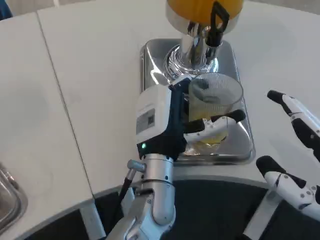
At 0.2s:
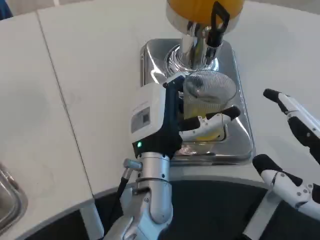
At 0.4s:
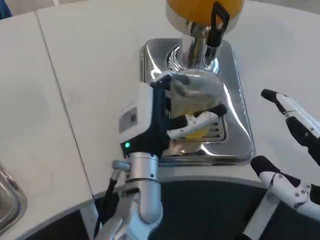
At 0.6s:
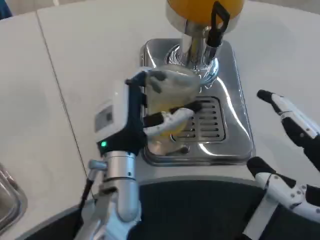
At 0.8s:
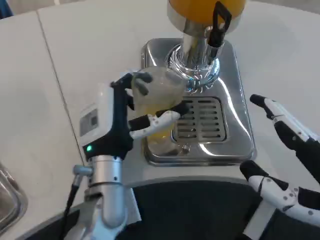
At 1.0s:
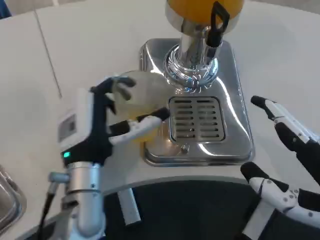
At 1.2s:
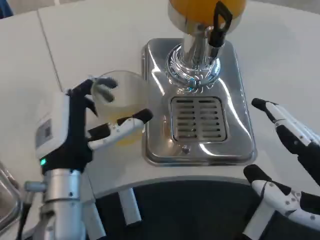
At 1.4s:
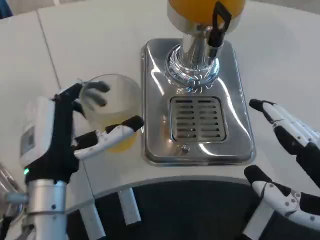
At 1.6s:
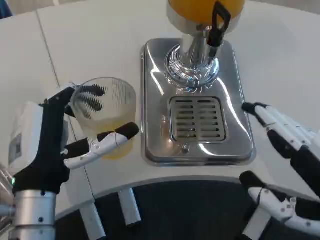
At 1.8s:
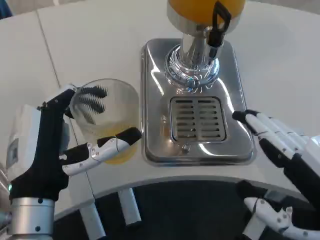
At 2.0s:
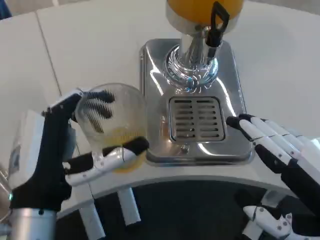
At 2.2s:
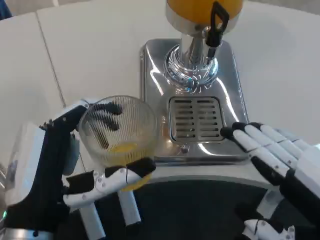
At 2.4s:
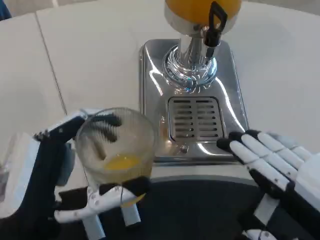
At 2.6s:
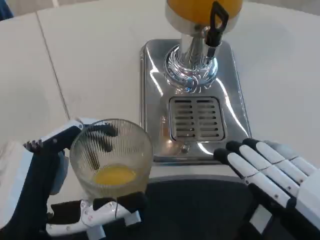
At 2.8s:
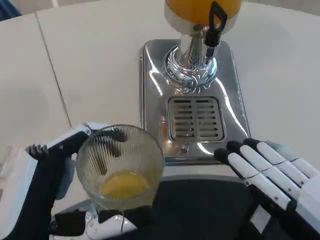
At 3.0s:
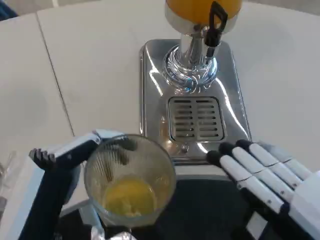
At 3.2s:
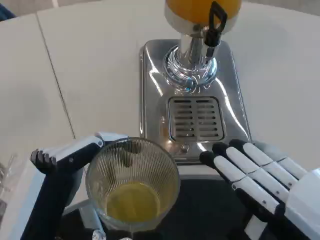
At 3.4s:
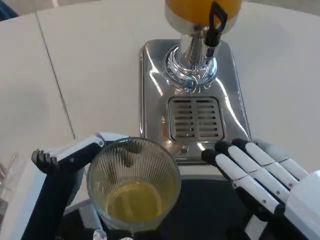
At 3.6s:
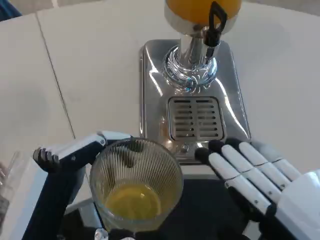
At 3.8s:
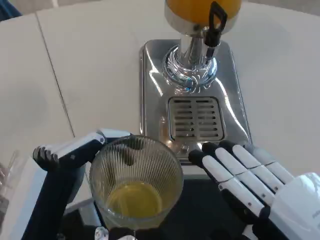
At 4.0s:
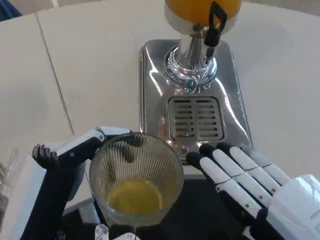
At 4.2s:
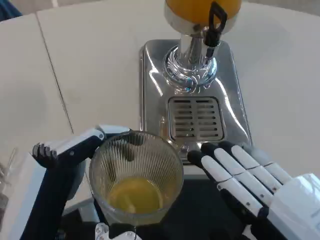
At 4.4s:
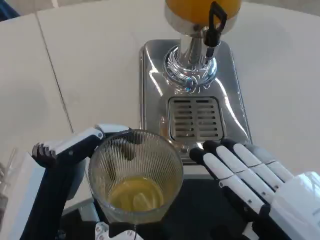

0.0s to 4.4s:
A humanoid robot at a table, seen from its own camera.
Task of the whole recording: Grasp the cup under the faucet to collect the drink, then remove the cup.
0.0s to 1.4s: The left hand travels to the left and backward by some 15 cm.
1.4s to 3.0s: The left hand goes about 10 cm backward.
3.0s to 4.4s: The hands stay close to where they were, moving slightly.

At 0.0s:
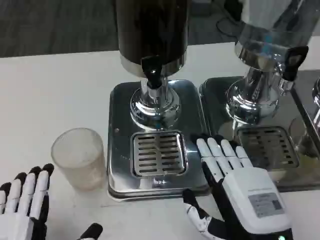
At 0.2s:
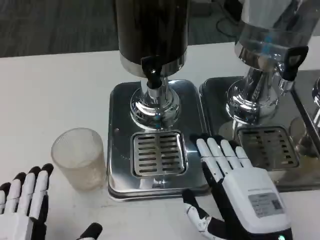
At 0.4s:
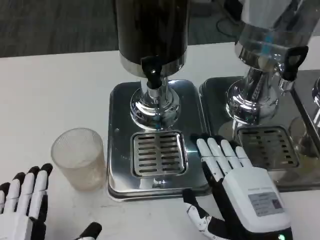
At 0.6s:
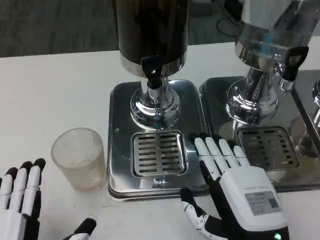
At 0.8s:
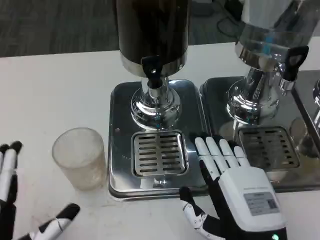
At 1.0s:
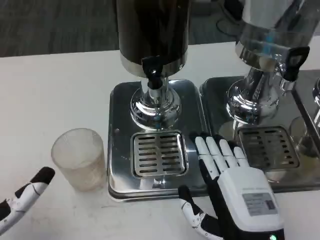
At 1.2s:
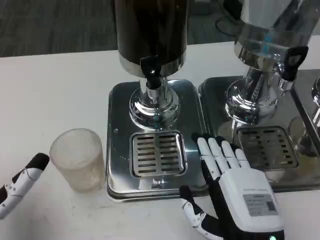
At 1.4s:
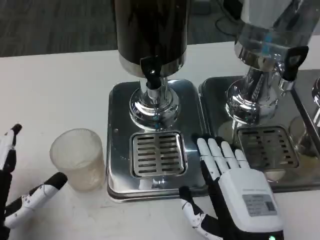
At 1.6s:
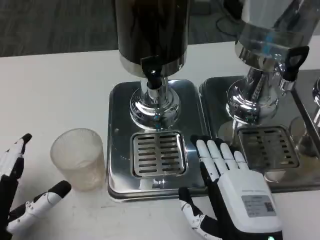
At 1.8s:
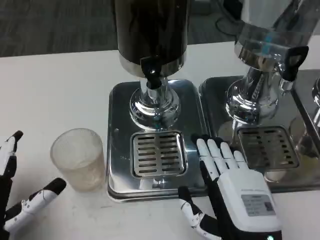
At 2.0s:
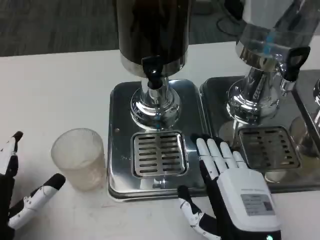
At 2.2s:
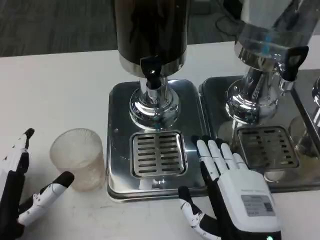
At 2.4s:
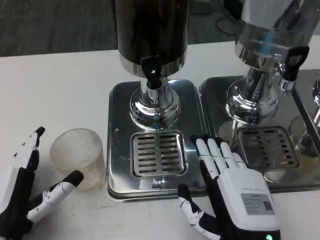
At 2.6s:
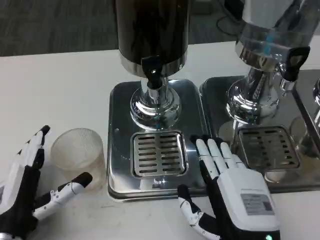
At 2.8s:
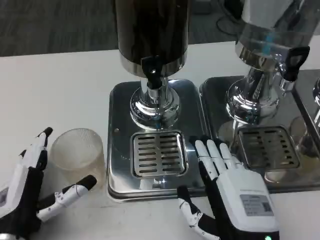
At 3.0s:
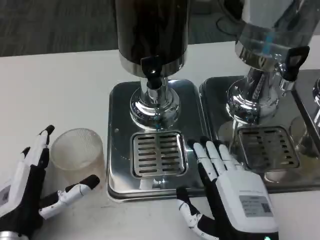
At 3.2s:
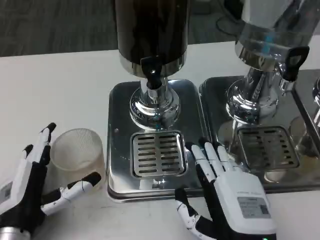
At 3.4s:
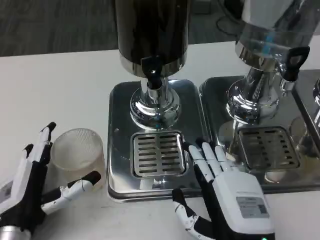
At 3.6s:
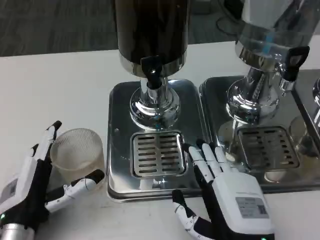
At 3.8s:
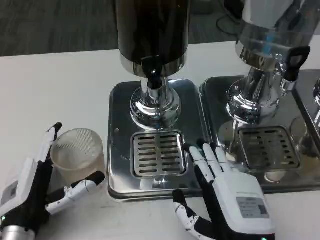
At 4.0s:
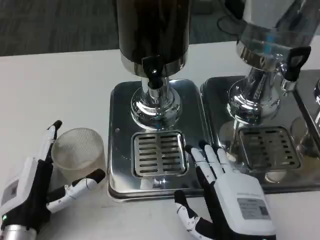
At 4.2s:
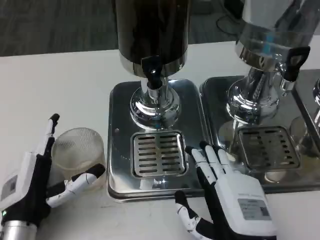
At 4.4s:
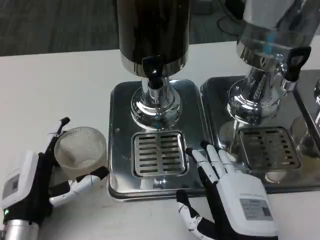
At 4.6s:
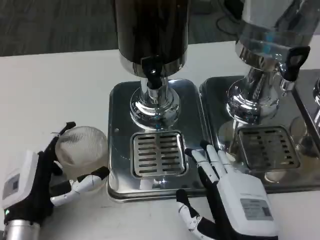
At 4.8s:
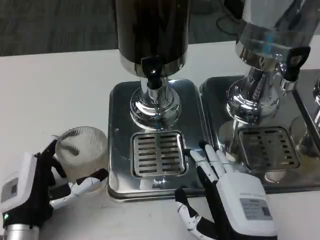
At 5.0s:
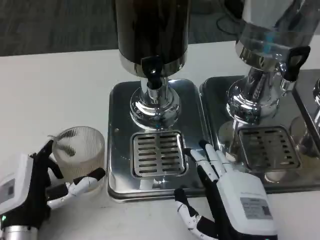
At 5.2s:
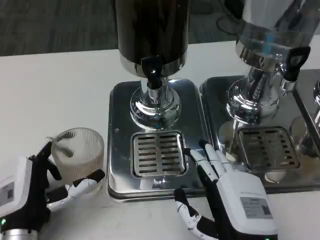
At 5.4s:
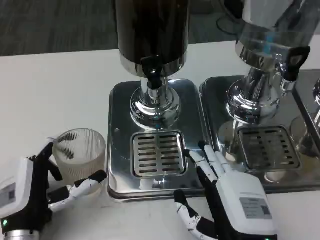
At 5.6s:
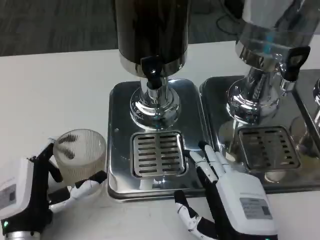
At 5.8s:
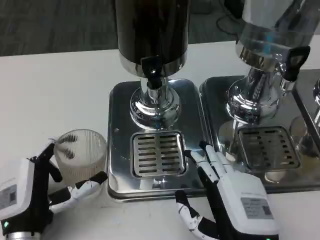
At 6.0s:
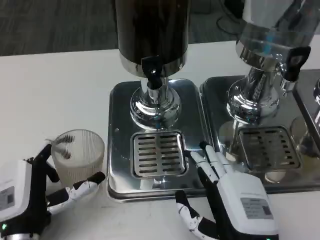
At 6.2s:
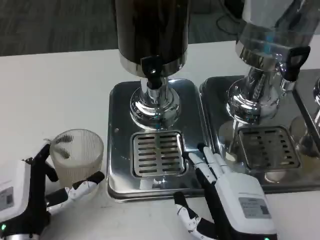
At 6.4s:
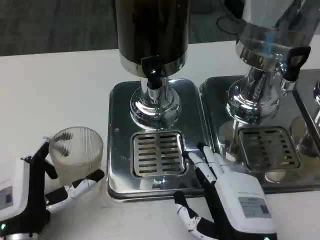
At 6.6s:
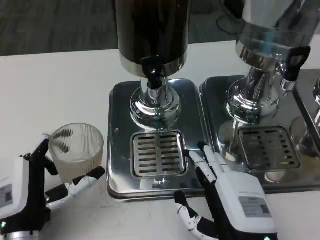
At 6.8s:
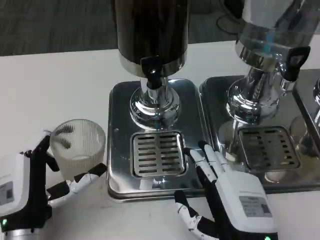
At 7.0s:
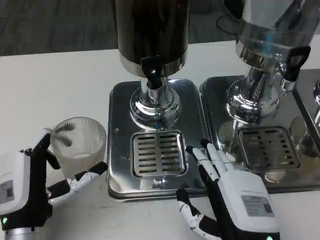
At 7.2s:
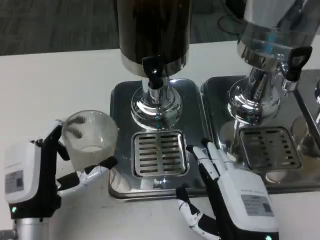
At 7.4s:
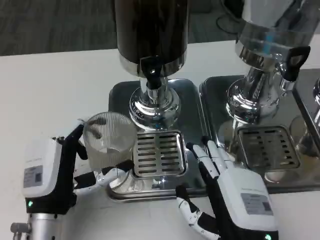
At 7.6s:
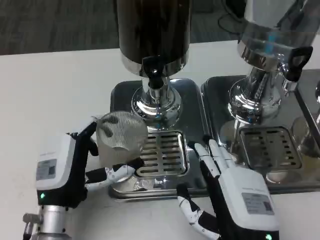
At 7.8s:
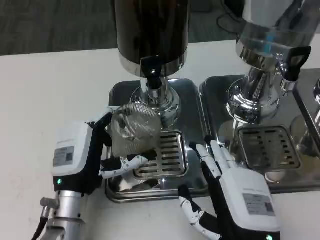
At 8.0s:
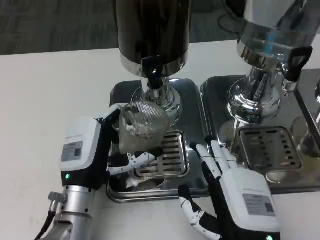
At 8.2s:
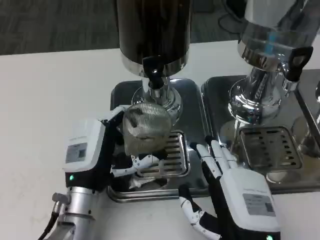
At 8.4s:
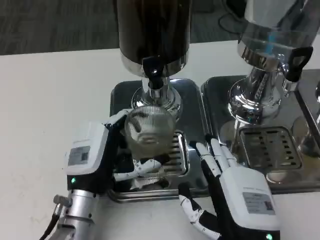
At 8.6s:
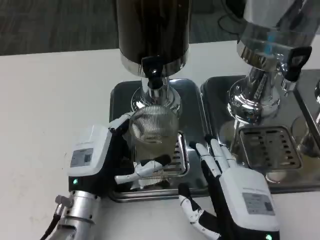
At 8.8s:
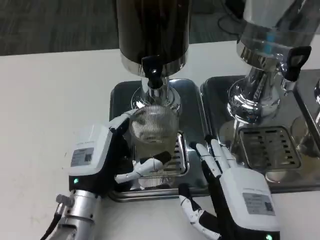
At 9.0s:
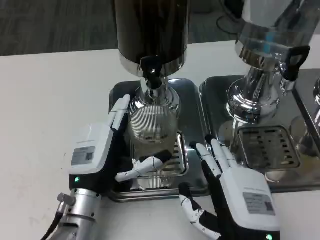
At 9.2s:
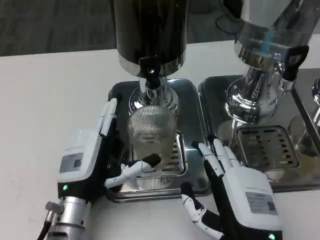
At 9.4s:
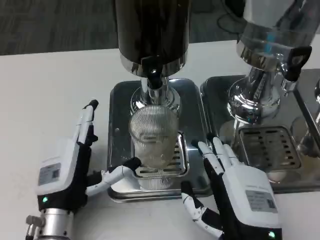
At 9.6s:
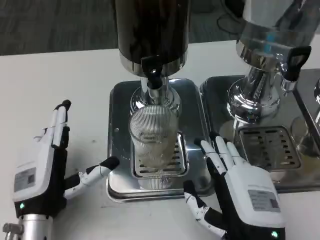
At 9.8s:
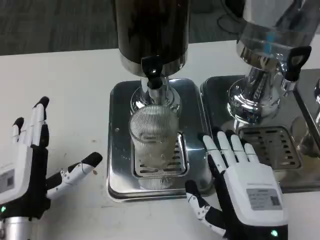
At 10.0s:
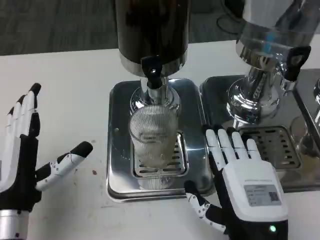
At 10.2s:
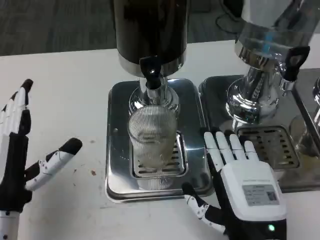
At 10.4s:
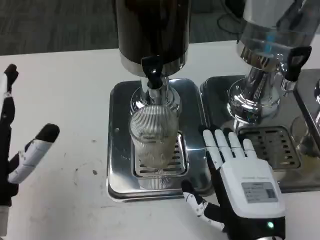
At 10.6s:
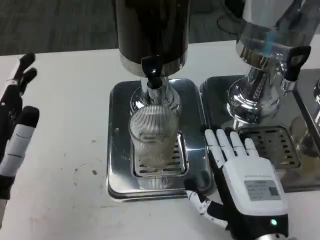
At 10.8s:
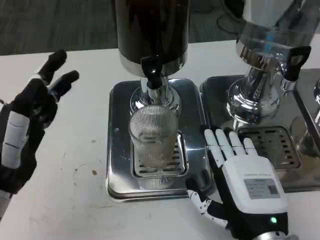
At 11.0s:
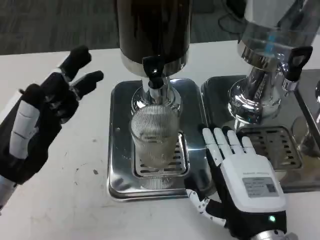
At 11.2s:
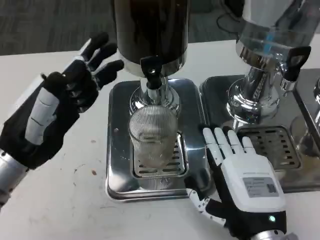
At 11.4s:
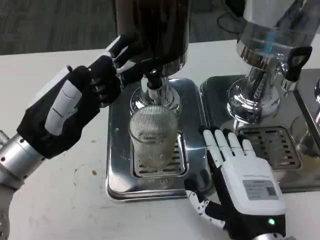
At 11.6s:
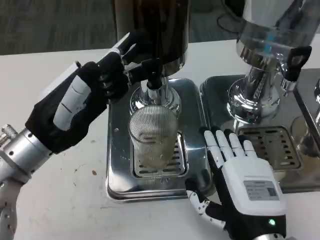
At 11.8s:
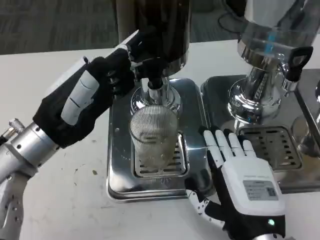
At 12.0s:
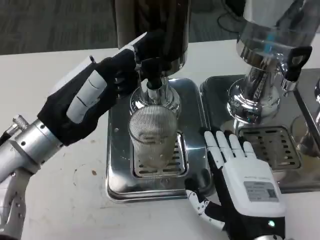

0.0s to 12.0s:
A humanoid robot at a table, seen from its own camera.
Task of the whole recording: Grasp the cup under the faucet to collect the drink, then remove the cup.
0.0s to 1.6s: The left hand goes about 10 cm forward and to the left.
1.6s to 3.0s: The left hand ends up some 5 cm from where it was.
3.0s to 6.0s: The hands move only a little.
6.0s to 7.6s: The left hand ends up roughly 5 cm from where it was.
9.0s to 10.4s: The left hand goes about 10 cm to the left, upward and backward.
10.4s to 12.0s: The left hand travels forward and upward by roughly 10 cm.

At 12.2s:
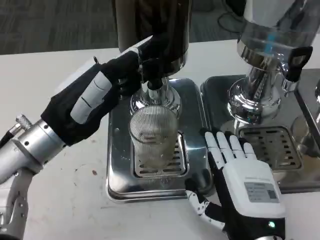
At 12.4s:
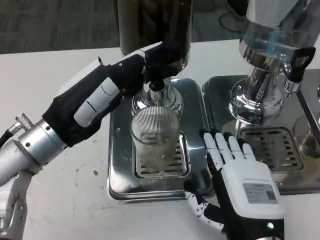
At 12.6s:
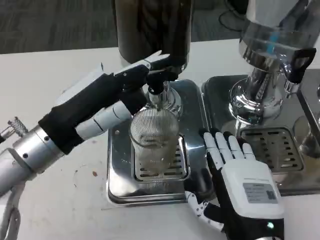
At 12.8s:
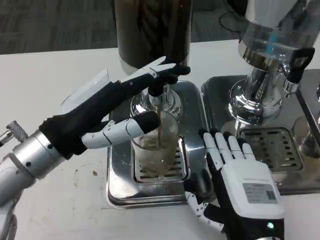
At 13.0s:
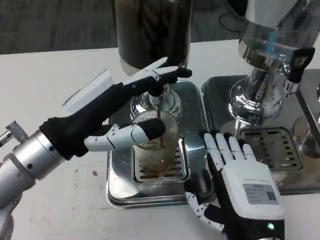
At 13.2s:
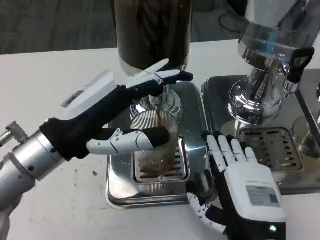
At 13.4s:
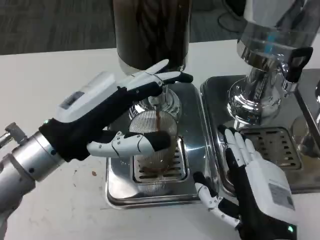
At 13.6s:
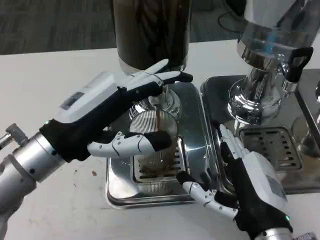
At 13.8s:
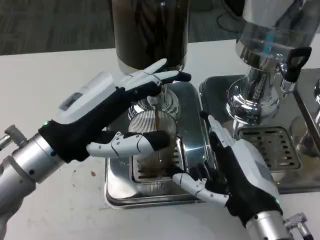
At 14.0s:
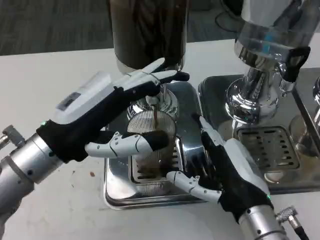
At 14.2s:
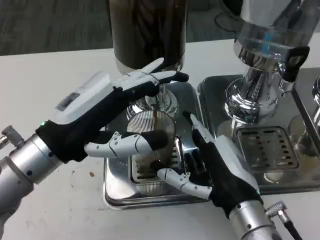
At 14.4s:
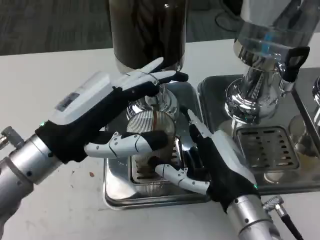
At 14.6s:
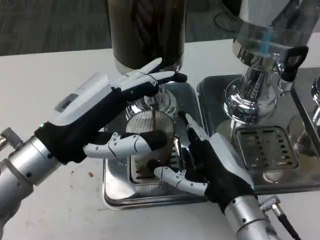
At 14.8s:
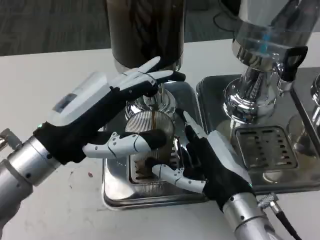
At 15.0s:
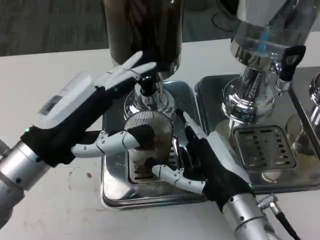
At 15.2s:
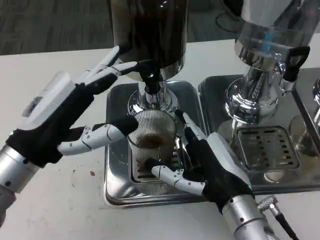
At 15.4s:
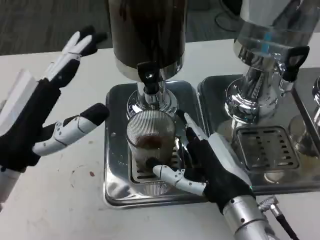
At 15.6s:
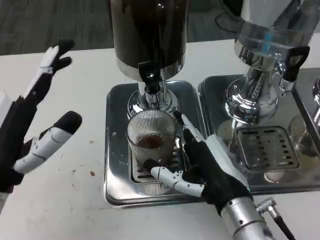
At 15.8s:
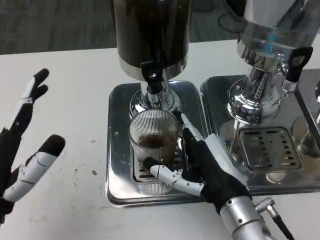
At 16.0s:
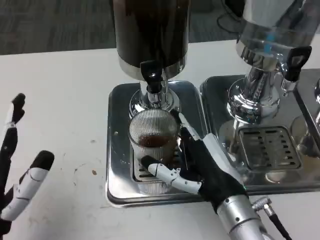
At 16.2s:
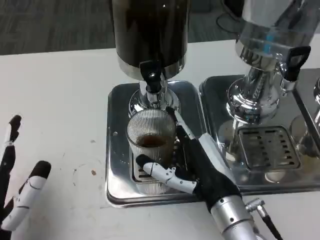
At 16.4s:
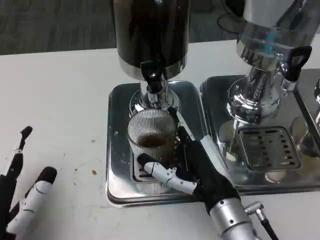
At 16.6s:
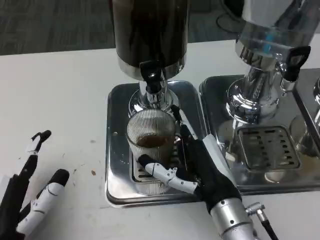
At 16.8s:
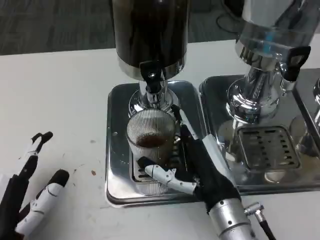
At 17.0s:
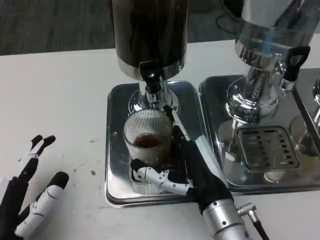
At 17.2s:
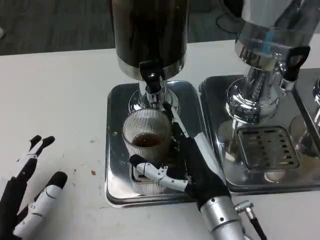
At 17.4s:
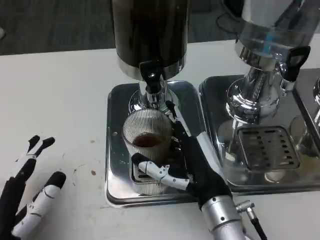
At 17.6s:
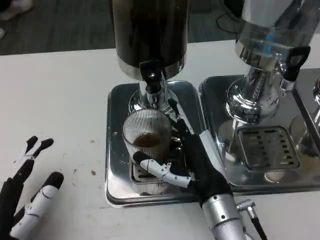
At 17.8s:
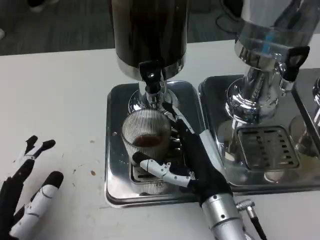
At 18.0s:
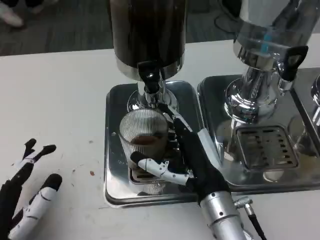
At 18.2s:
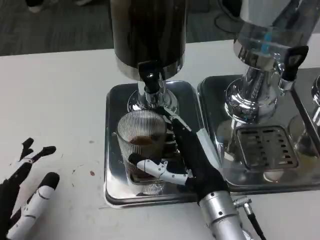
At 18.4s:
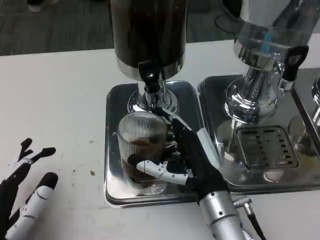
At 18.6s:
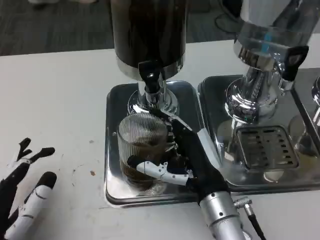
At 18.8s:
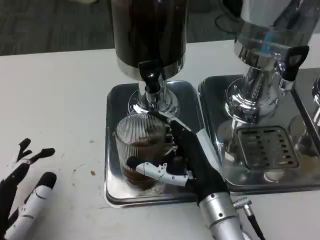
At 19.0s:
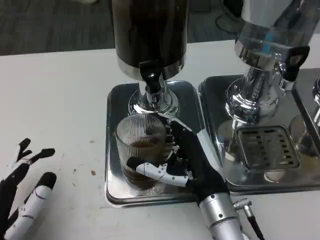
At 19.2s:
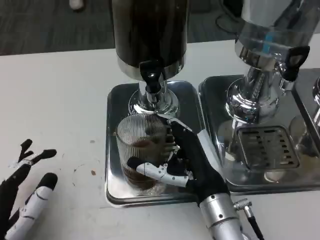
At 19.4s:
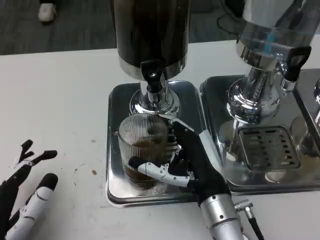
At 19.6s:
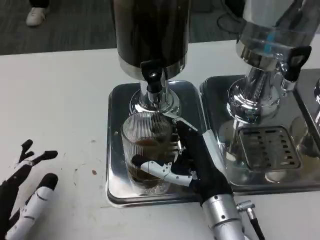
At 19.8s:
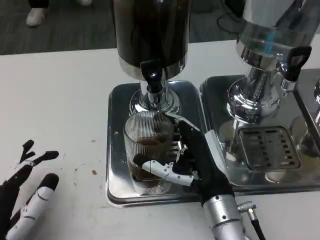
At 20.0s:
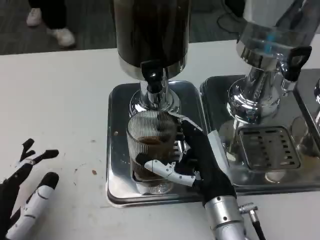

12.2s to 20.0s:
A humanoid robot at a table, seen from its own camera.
Task of the whole recording: Grasp the cup under the faucet to collect the drink, then remove the cup.
13.8s to 15.4s: The left hand shifts by approximately 5 cm.
15.4s to 16.8s: The left hand travels downward and backward by roughly 15 cm.
16.8s to 20.0s: There are only small adjustments of the hands.
